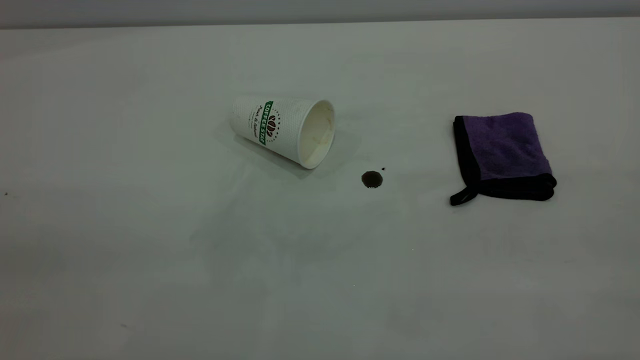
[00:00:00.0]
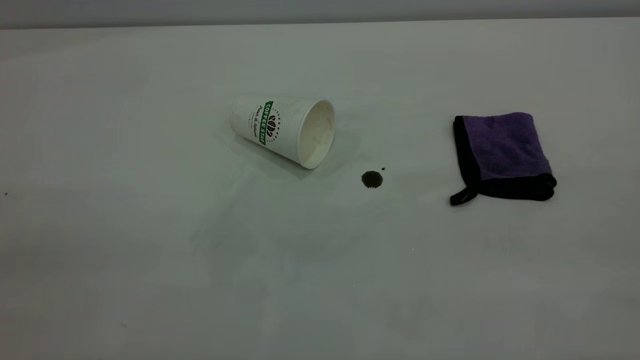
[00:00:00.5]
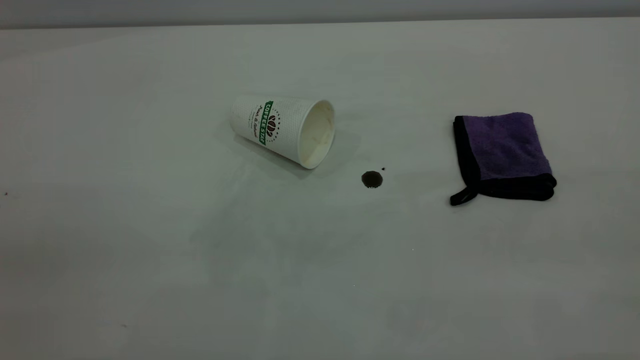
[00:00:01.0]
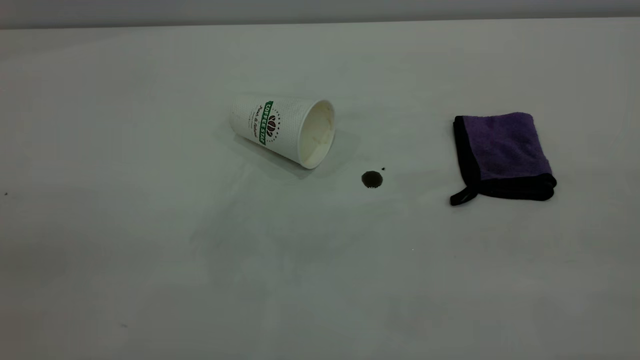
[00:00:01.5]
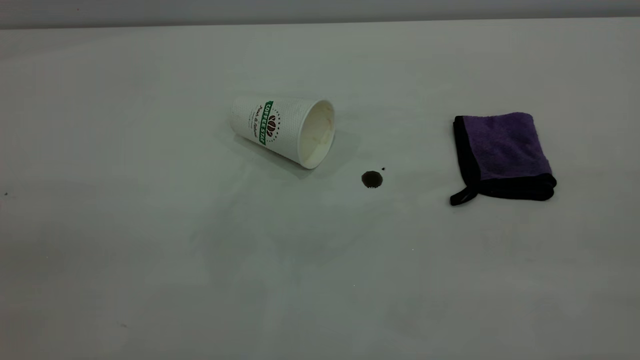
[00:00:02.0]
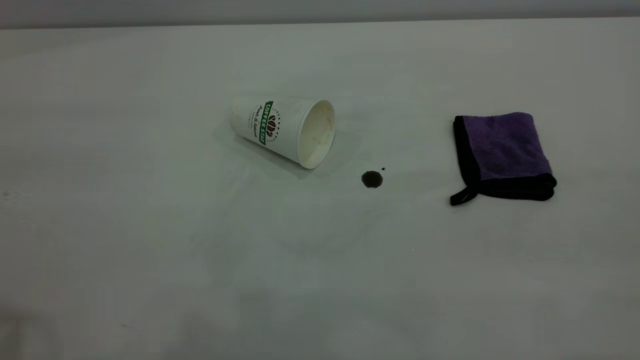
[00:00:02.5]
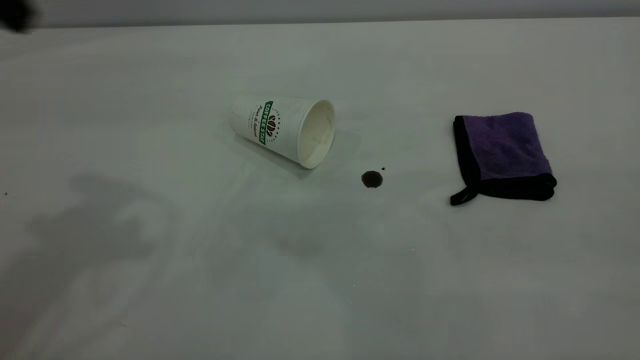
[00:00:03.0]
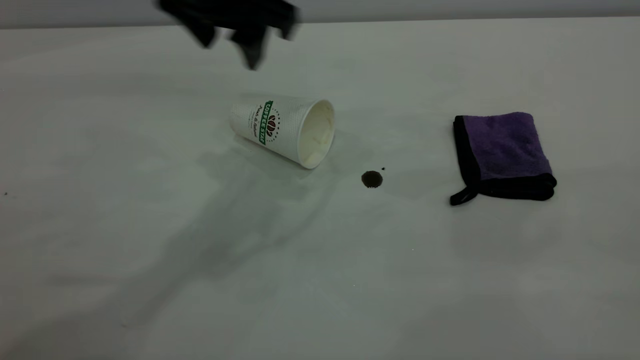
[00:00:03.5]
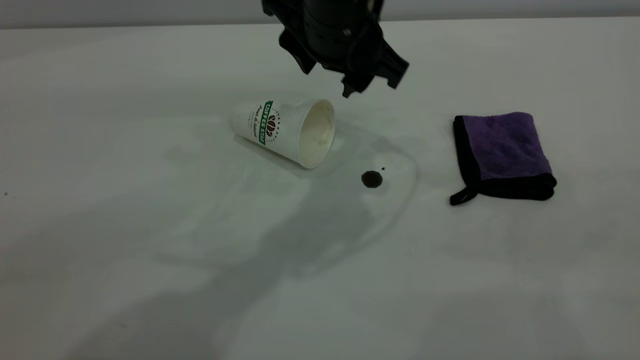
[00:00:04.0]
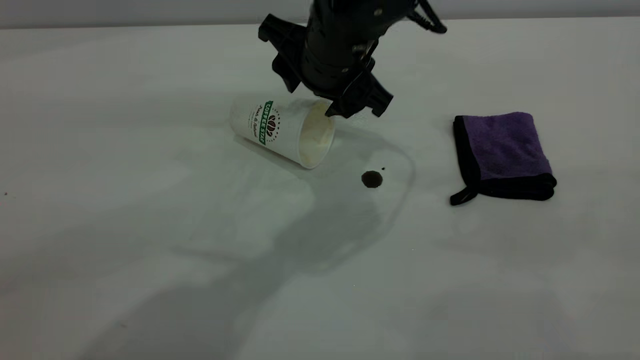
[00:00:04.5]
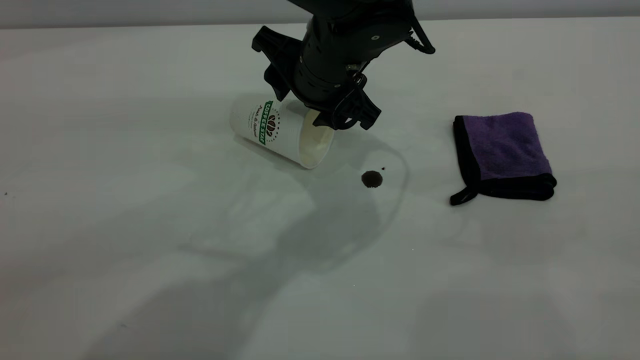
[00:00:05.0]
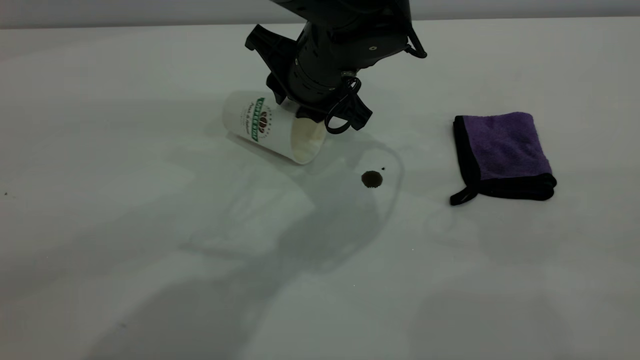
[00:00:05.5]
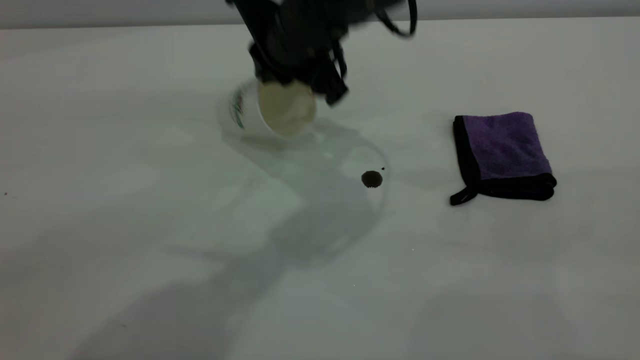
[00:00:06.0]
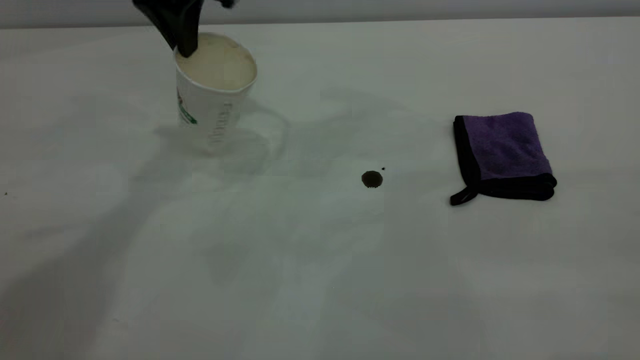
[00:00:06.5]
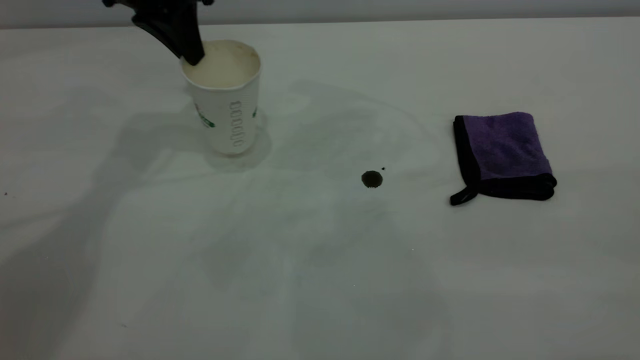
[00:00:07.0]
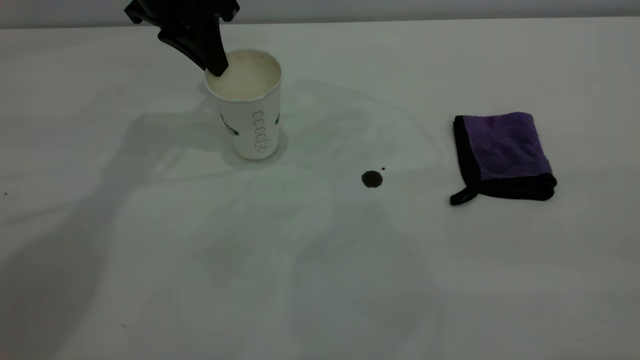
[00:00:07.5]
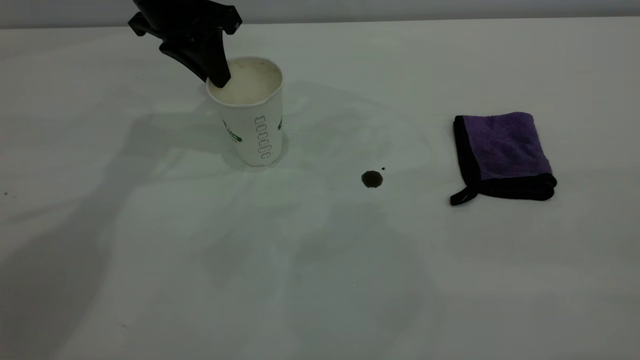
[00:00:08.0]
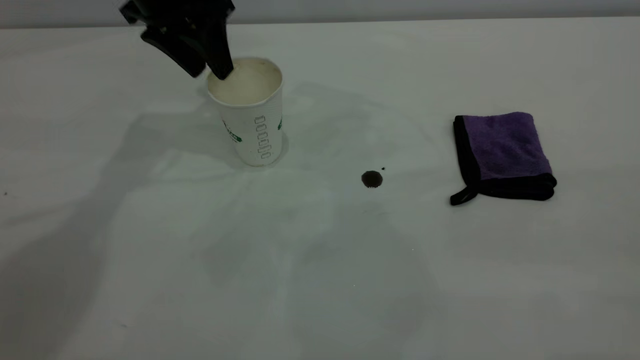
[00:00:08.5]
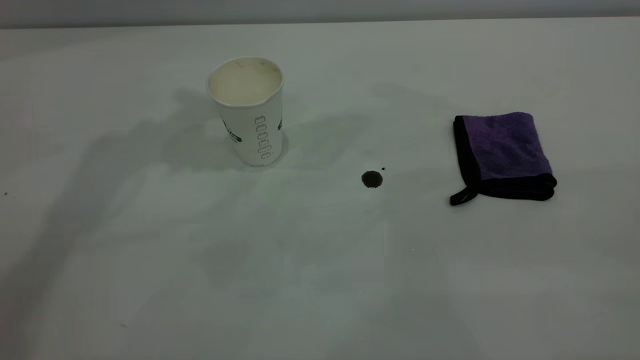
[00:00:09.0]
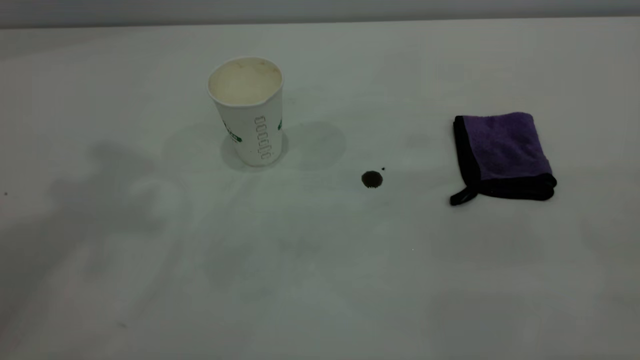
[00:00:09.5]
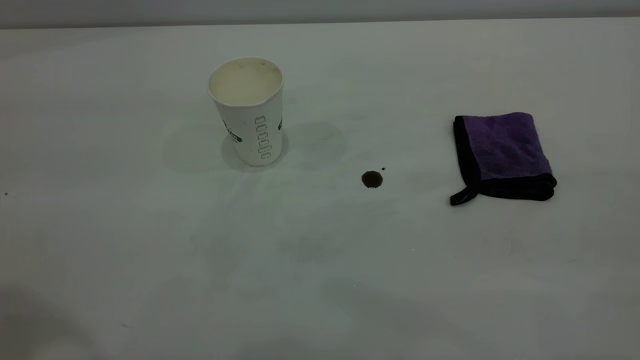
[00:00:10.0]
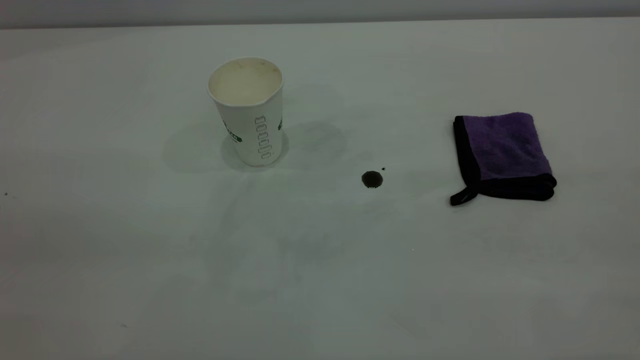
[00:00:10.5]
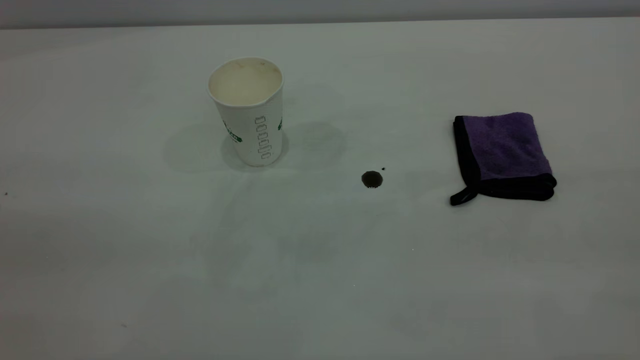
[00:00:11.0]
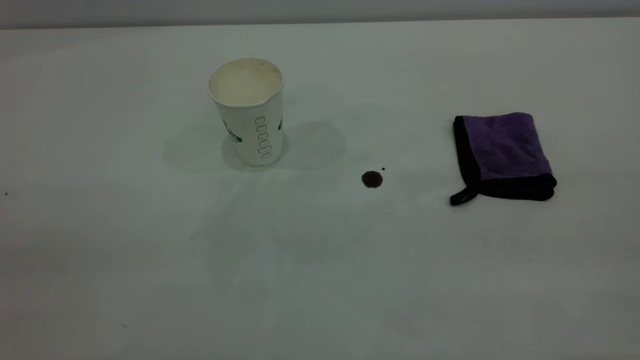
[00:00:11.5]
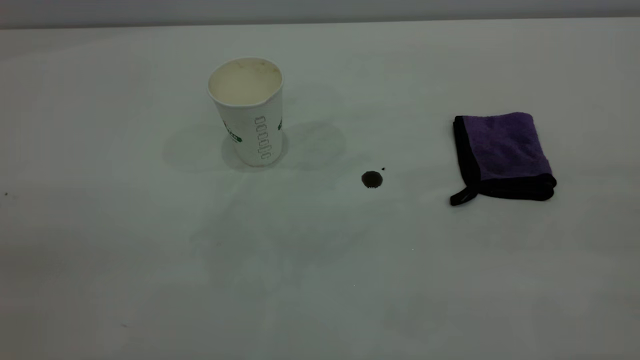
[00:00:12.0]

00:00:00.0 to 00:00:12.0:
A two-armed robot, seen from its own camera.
Task of the whole recording: the left gripper pick up the fallen cup and place it upright, the right gripper grasp the purple rag and wipe the coffee stain on the table, the right gripper put the purple rag back in its original position.
Step, 00:00:00.0 to 00:00:08.5: Stand the paper cup upright.
00:00:02.0 to 00:00:04.0: The left gripper shifts roughly 50 cm forward, to the right and downward.
00:00:04.0 to 00:00:06.0: The left gripper closes its fingers.
00:00:06.0 to 00:00:08.0: The left gripper heads to the left and forward, covering some 20 cm.
00:00:08.0 to 00:00:10.0: The left gripper shifts approximately 40 cm backward and upward, and opens up.

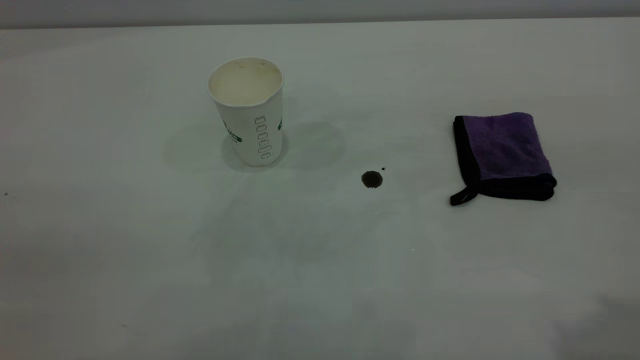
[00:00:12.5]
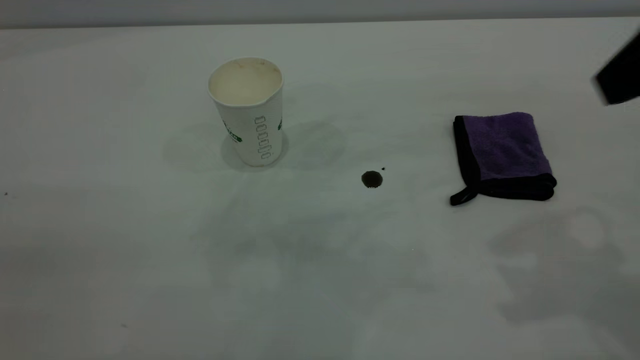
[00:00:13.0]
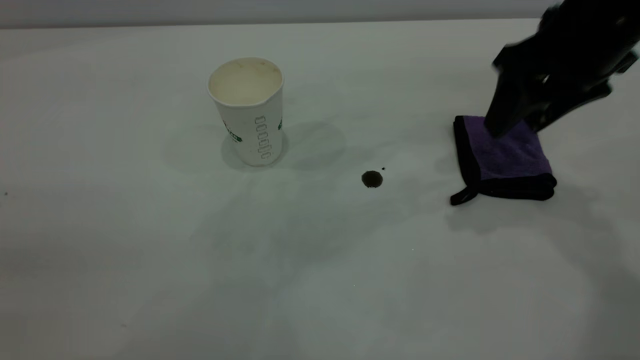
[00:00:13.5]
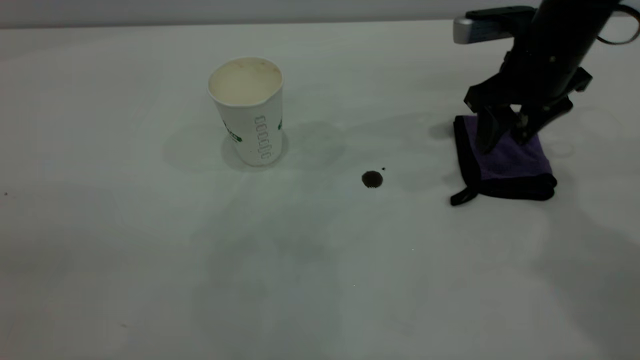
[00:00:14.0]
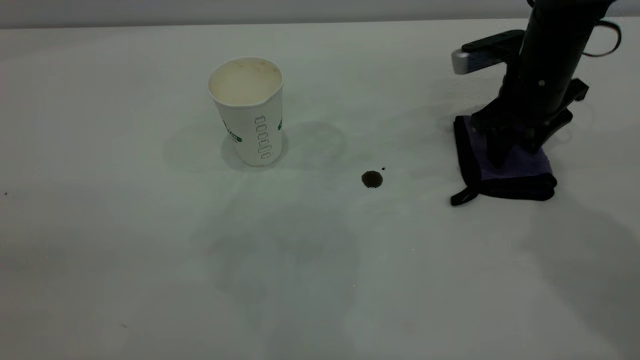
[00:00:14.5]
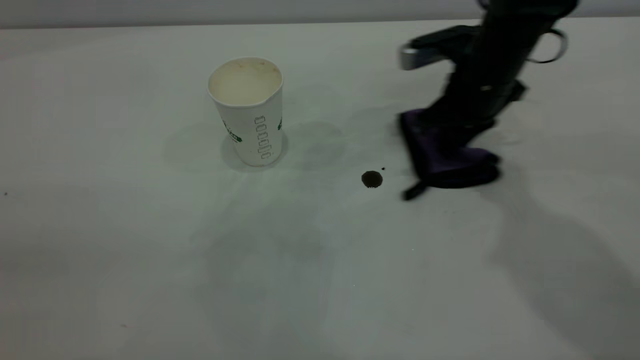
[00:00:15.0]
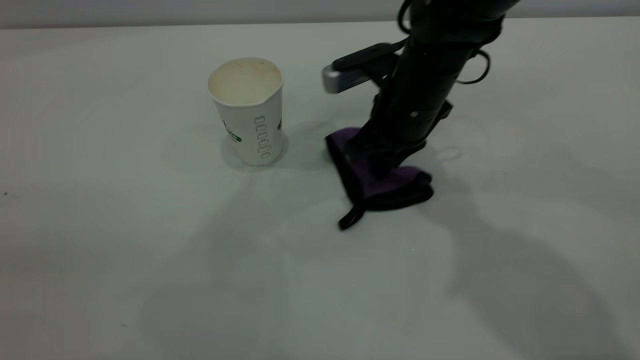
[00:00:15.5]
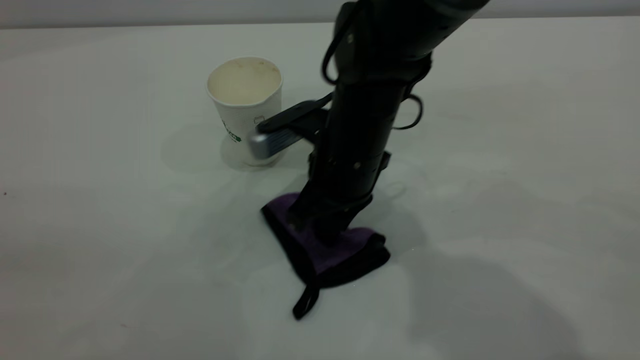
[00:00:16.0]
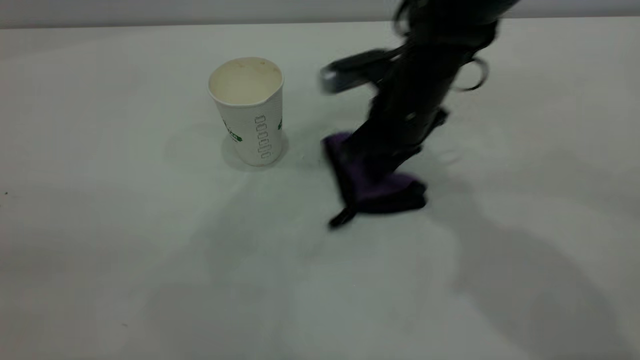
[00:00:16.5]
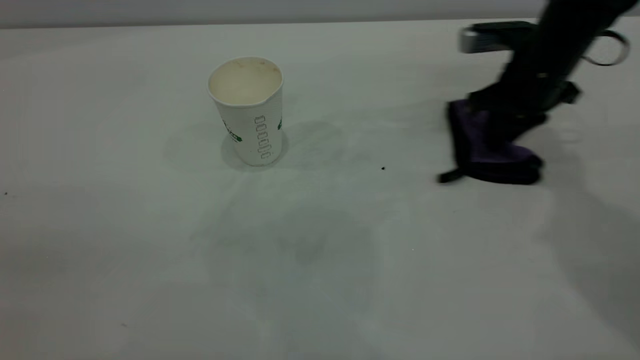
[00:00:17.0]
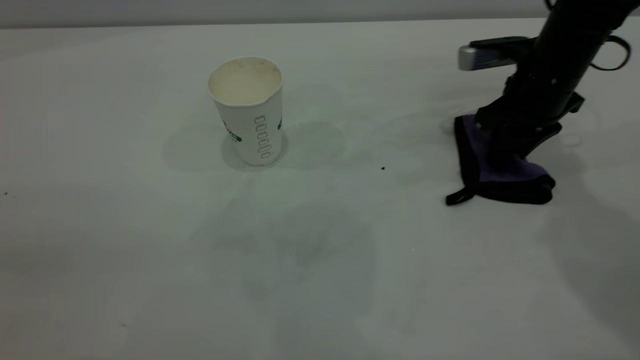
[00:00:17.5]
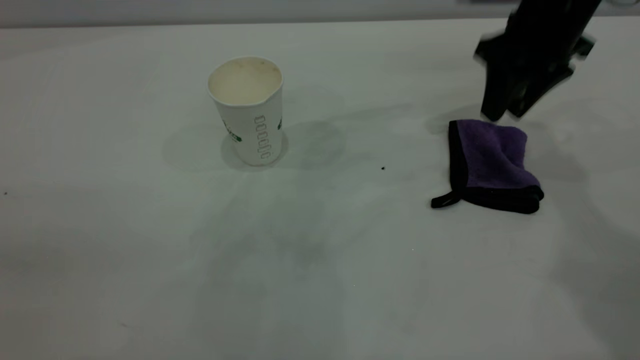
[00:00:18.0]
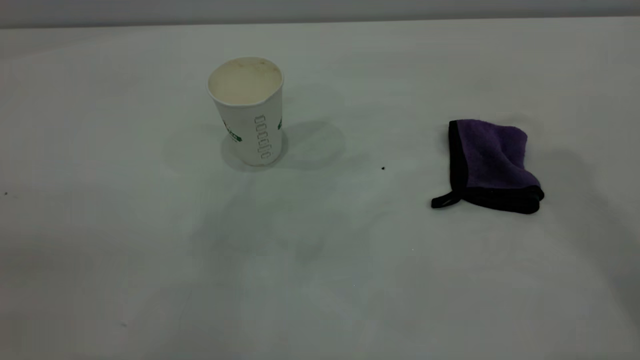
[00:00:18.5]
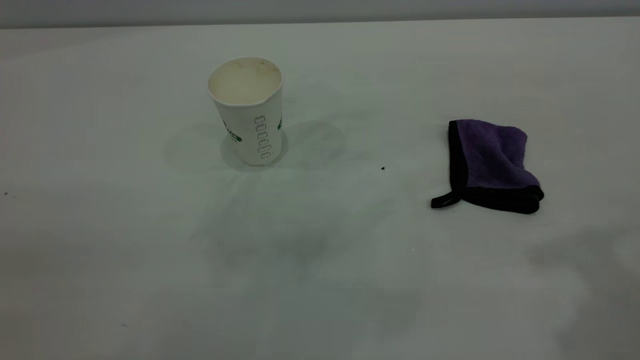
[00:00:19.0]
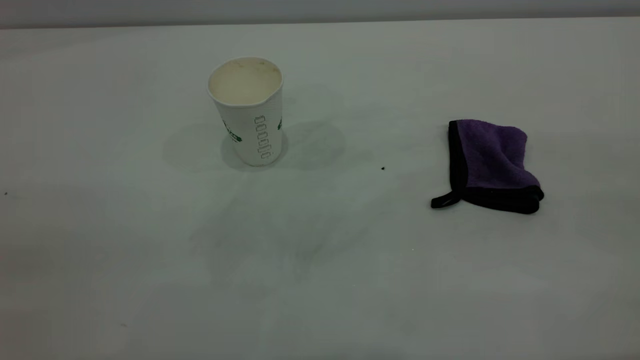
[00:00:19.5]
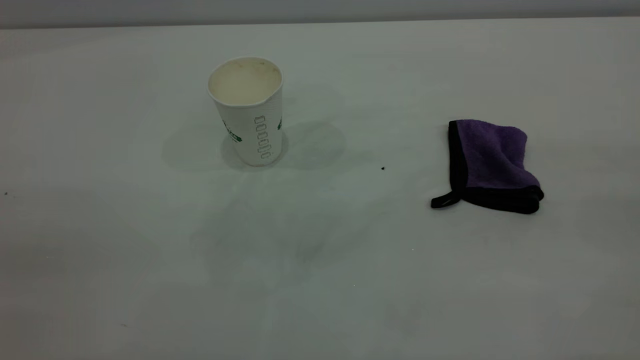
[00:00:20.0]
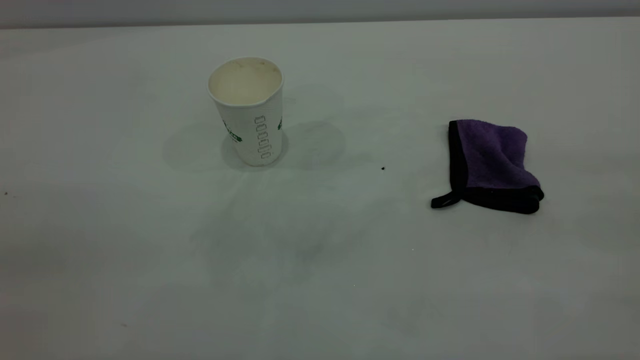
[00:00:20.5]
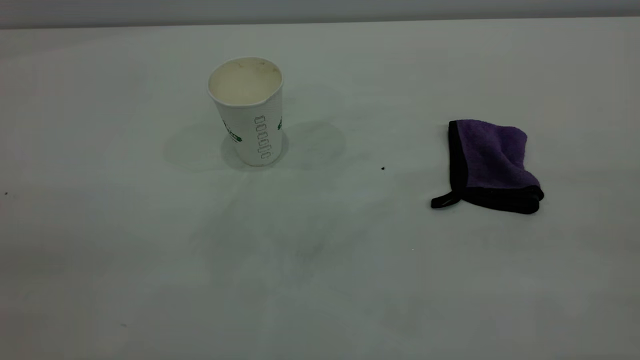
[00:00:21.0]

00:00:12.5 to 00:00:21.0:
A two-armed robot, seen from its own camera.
Task of the whole recording: the left gripper pick up the fallen cup and place it upright, the right gripper grasp the purple rag and wipe the coffee stain on the table, the right gripper put the purple rag back in its original position.
Step, 00:00:12.5 to 00:00:18.0: Wipe the stains off the table with a rag.
00:00:12.5 to 00:00:14.5: The right gripper moves forward and downward, some 40 cm.
00:00:14.5 to 00:00:16.5: The right gripper shifts some 10 cm to the left, and closes.
00:00:16.5 to 00:00:19.0: The right gripper travels upward, backward and to the right by roughly 40 cm, and opens up.
